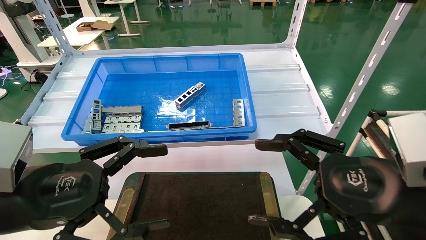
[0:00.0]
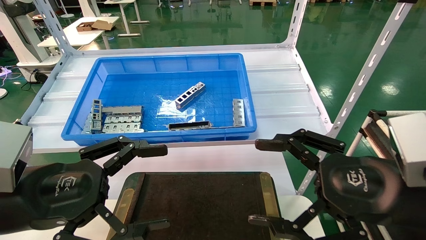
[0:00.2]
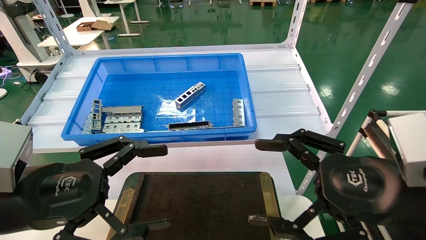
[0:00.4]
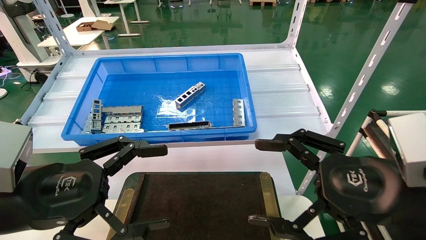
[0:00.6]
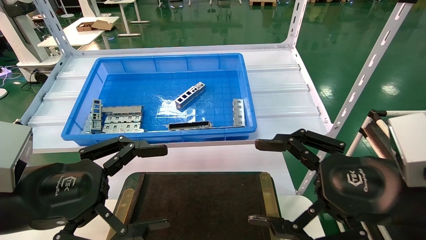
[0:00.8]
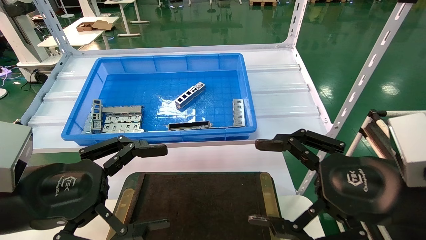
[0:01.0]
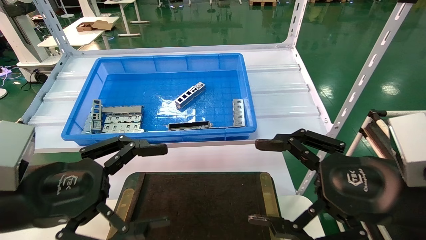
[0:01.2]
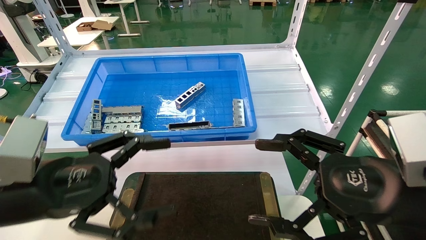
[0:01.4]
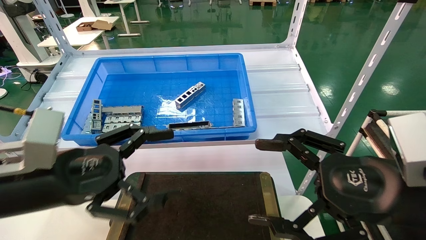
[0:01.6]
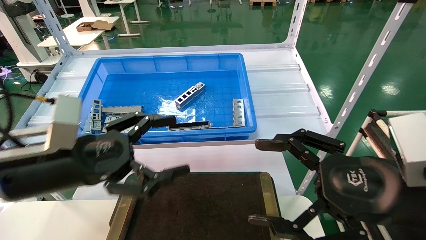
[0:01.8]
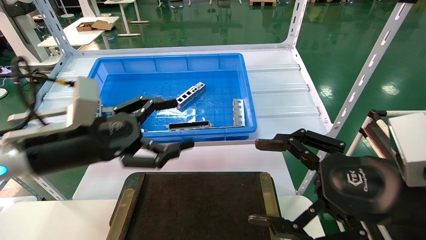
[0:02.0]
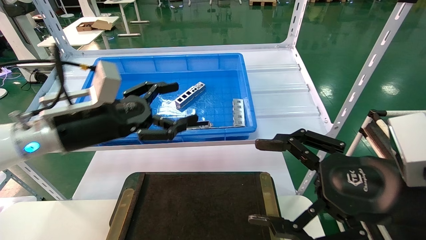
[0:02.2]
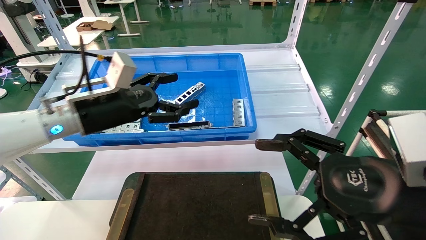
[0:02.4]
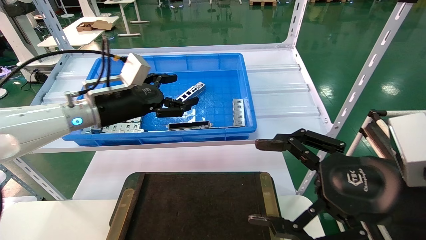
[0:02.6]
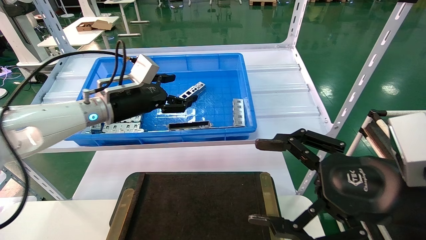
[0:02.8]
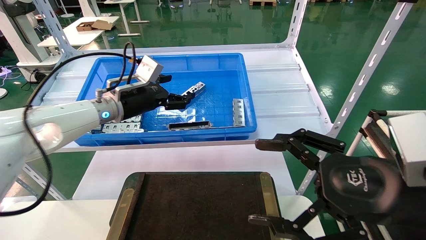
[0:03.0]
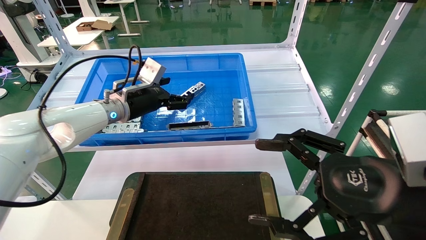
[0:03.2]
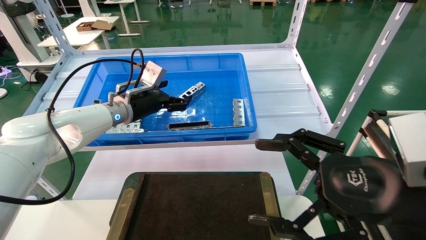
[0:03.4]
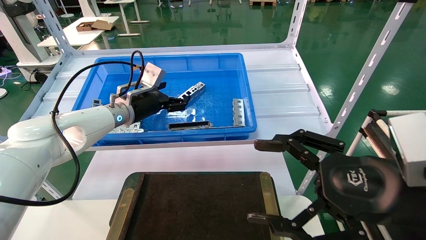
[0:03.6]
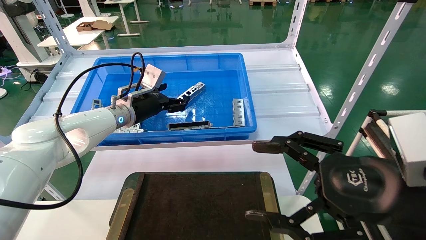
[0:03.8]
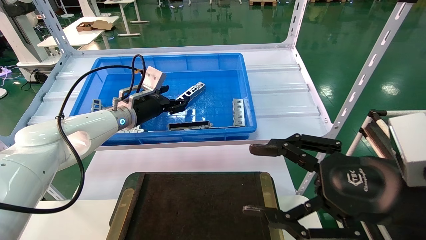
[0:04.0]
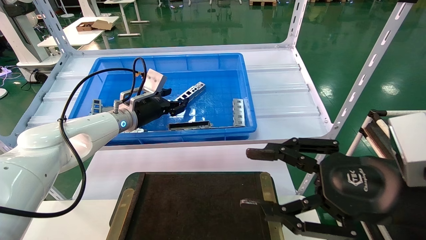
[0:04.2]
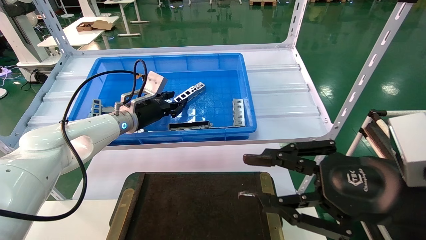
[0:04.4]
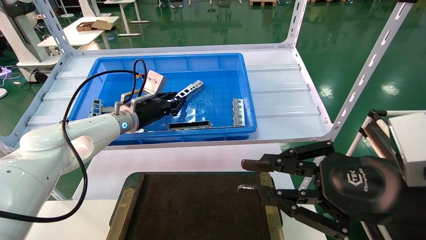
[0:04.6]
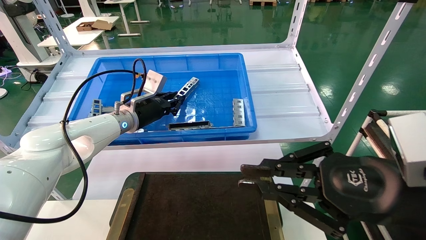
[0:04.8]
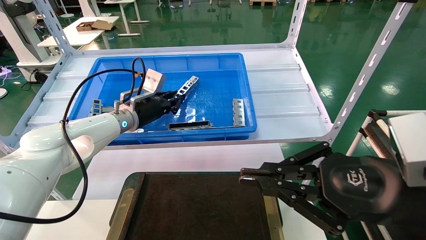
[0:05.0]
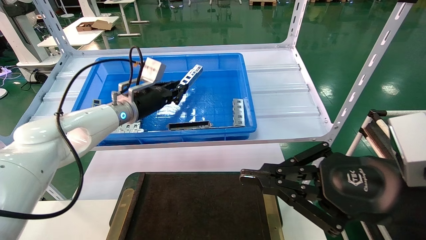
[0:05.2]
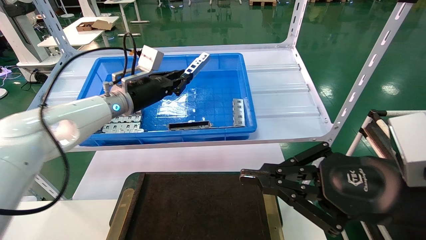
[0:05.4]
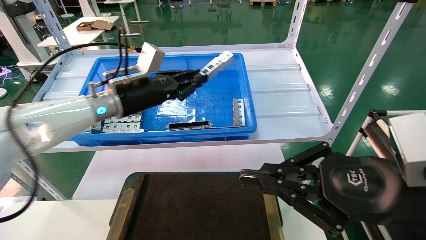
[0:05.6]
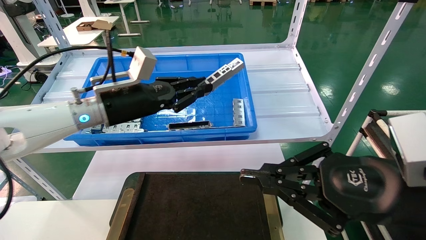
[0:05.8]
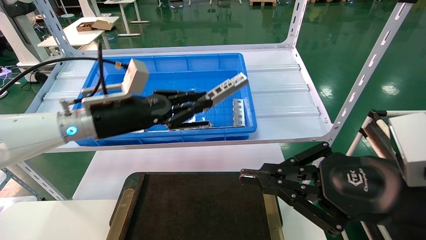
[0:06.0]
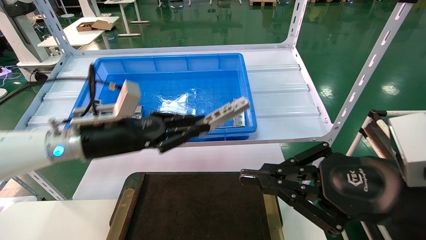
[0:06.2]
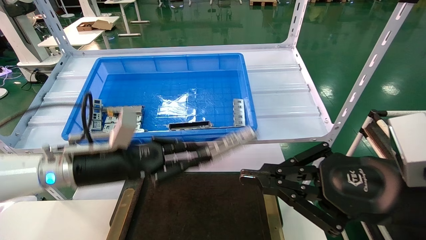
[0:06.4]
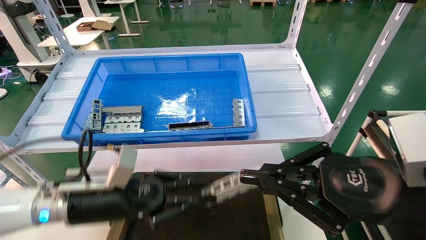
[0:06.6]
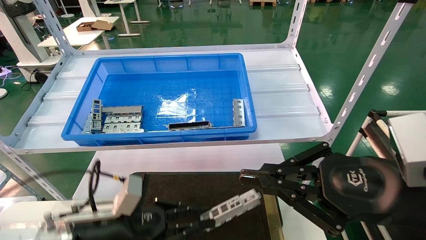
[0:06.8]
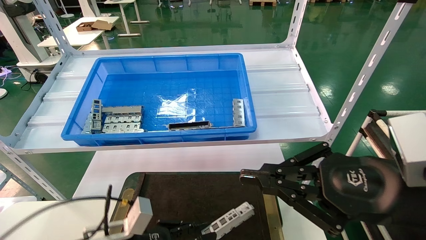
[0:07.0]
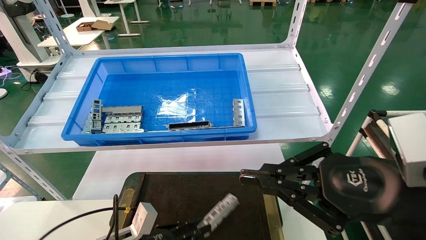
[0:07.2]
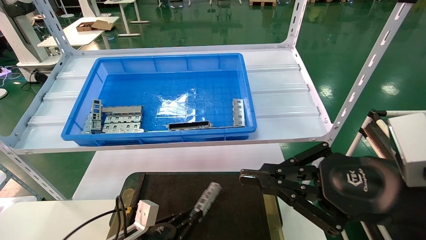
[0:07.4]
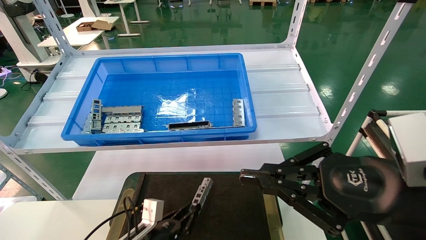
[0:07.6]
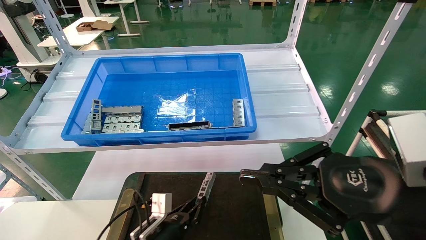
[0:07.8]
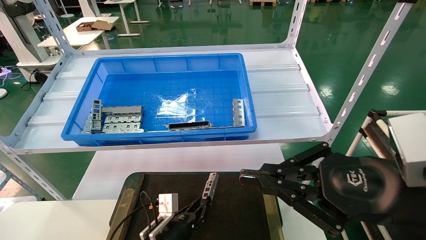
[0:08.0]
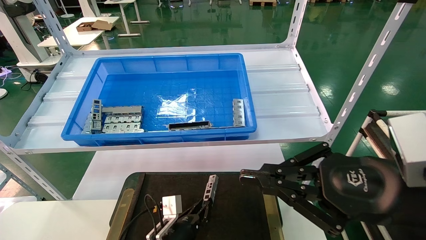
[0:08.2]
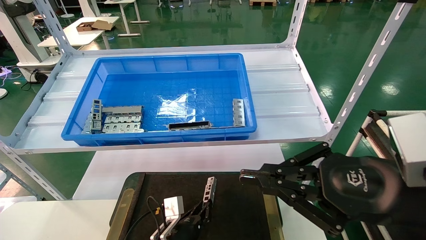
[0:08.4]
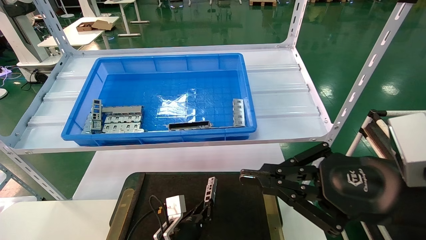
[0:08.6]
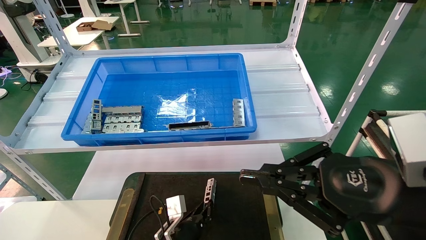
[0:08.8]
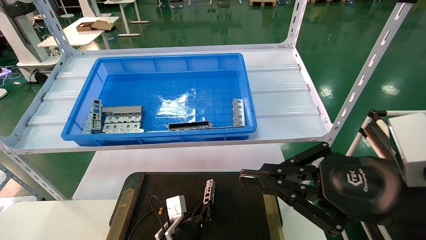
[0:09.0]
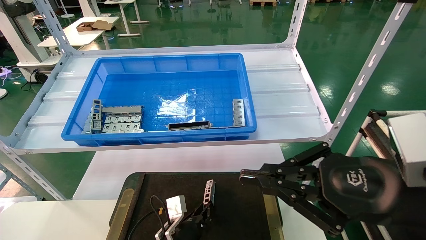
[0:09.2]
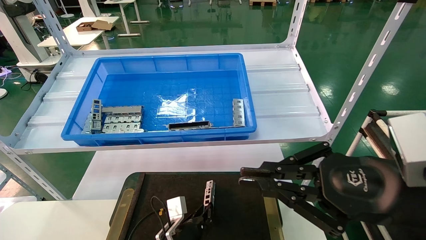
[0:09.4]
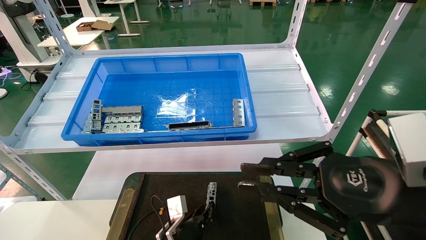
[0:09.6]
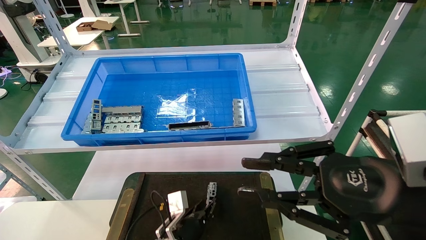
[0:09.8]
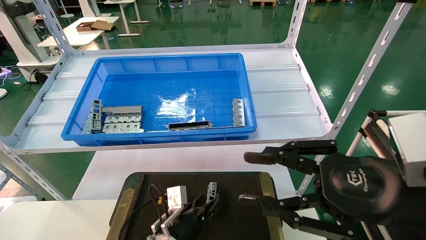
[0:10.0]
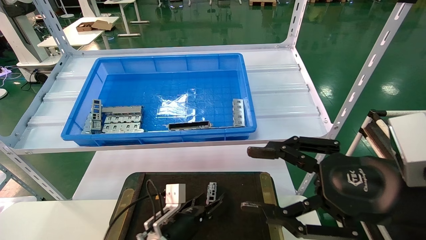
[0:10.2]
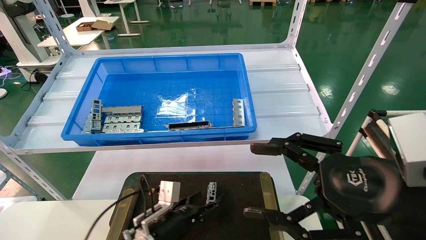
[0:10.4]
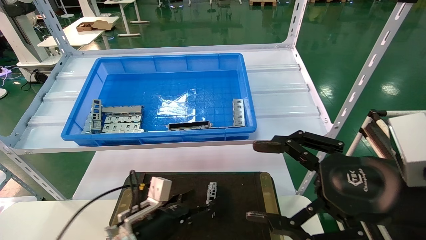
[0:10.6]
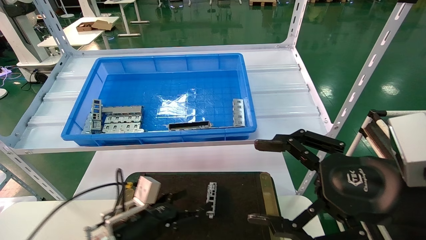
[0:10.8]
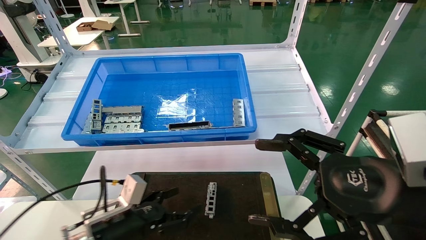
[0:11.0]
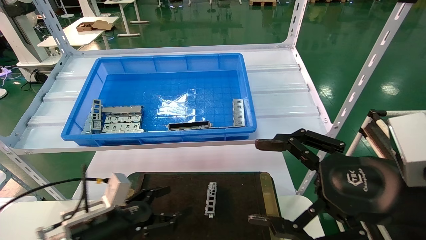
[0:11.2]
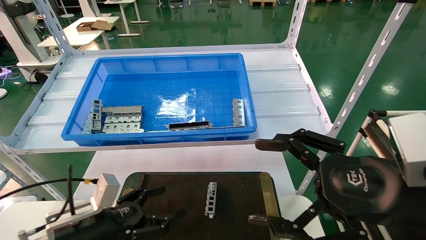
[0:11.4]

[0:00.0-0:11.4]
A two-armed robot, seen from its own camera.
Task of the whole recording: Grasp the part with one hand and place it on the black container.
Step, 0:01.4 to 0:05.2: Pick up the front USB bracket from the feeding area.
Step, 0:05.4 to 0:09.8: Place the front USB bracket into the box.
0:00.0 to 0:01.4: The grippers move only a little.
0:01.4 to 0:02.8: The left gripper shifts roughly 25 cm forward.
0:02.8 to 0:04.2: The left gripper shifts some 5 cm forward.
0:04.2 to 0:05.6: The left gripper heads backward, covering approximately 5 cm, and closes its fingers. The right gripper closes its fingers.
0:05.6 to 0:07.2: The left gripper goes roughly 35 cm downward and backward.
0:07.2 to 0:08.6: The left gripper travels to the right, forward and downward by approximately 15 cm.
0:08.6 to 0:10.0: The grippers stay close to where they were, moving slightly.
0:10.0 to 0:11.4: The right gripper opens up. Meanwhile the left gripper travels to the left, upward and backward by approximately 20 cm, and opens up.
